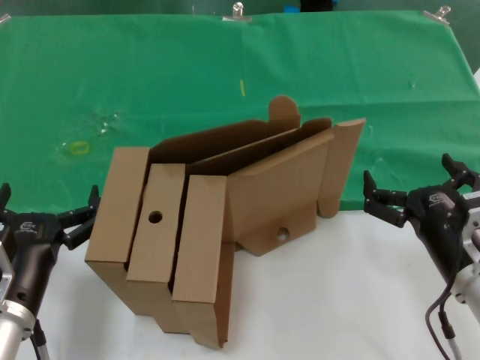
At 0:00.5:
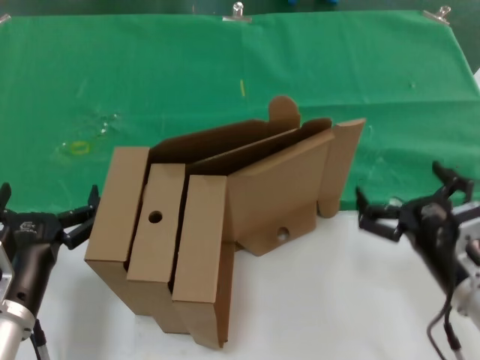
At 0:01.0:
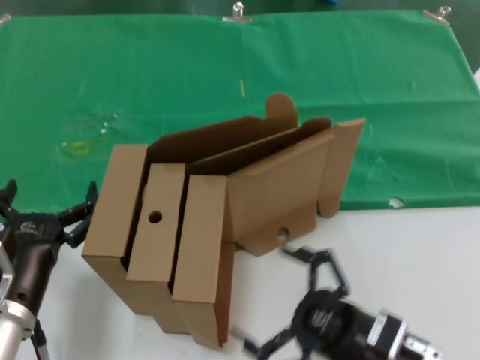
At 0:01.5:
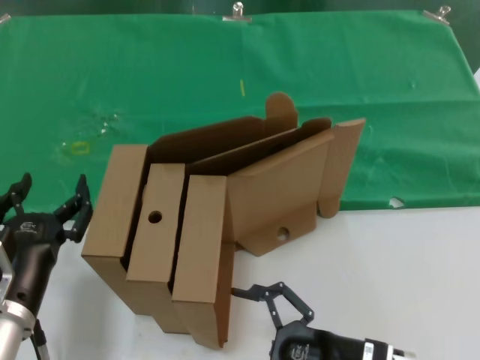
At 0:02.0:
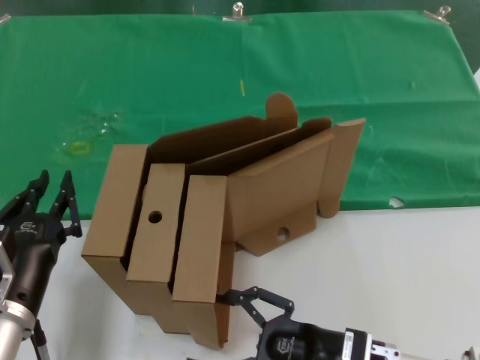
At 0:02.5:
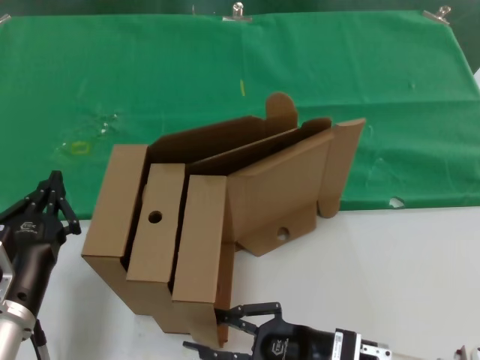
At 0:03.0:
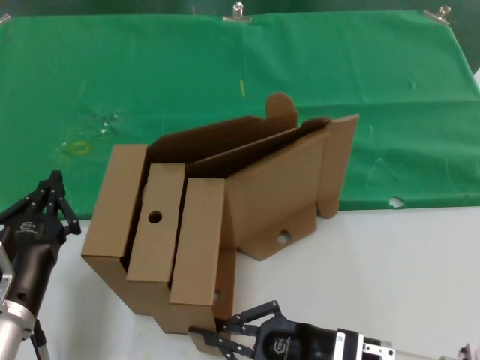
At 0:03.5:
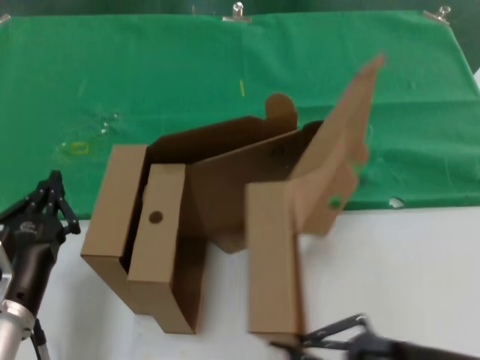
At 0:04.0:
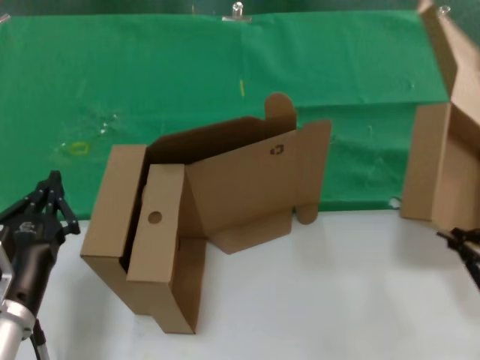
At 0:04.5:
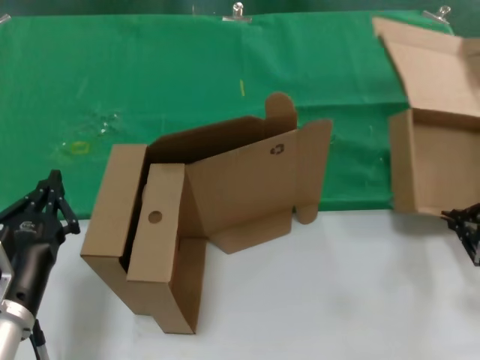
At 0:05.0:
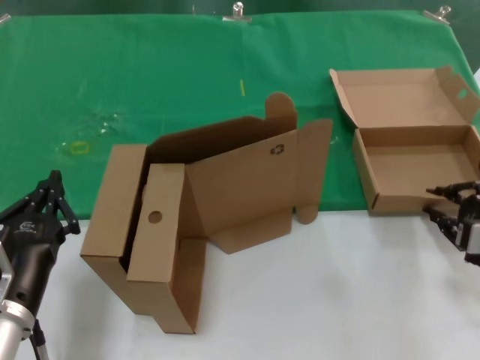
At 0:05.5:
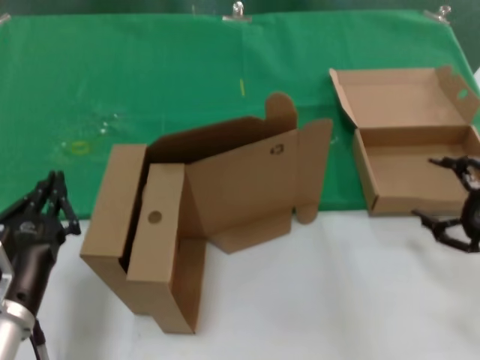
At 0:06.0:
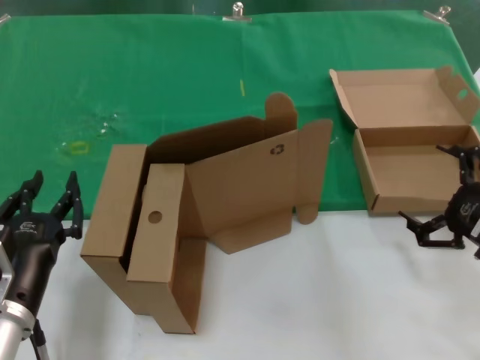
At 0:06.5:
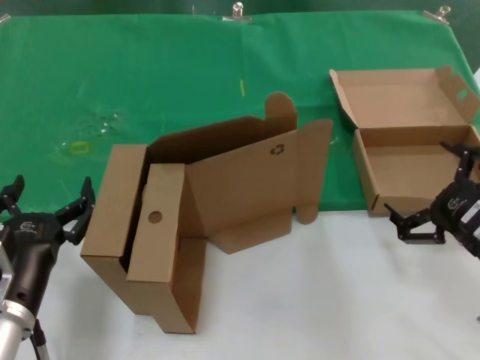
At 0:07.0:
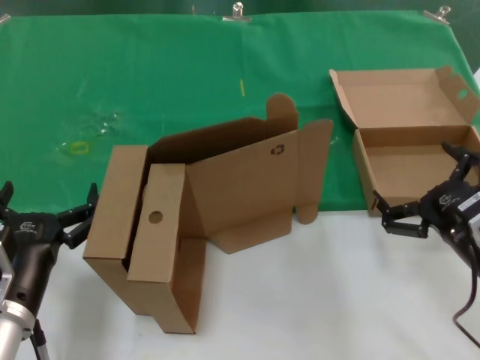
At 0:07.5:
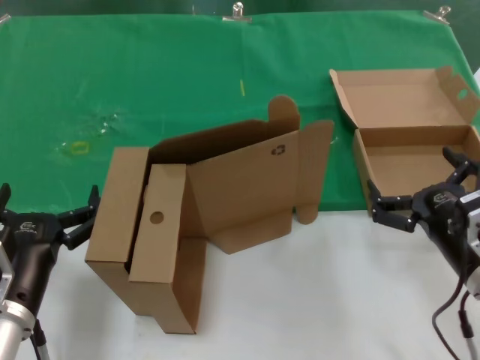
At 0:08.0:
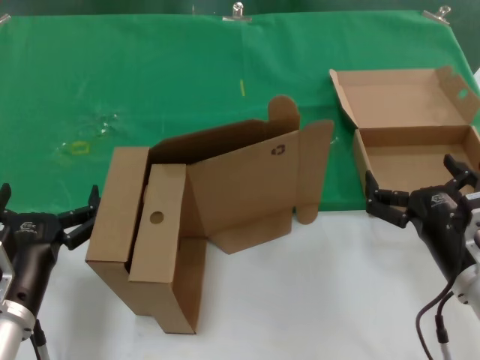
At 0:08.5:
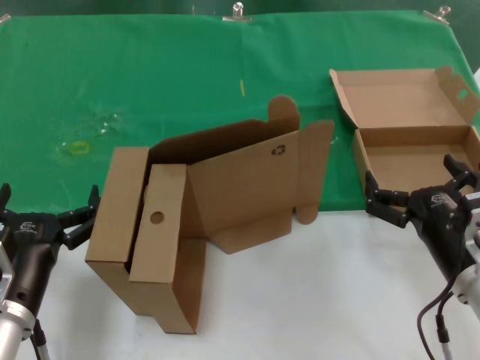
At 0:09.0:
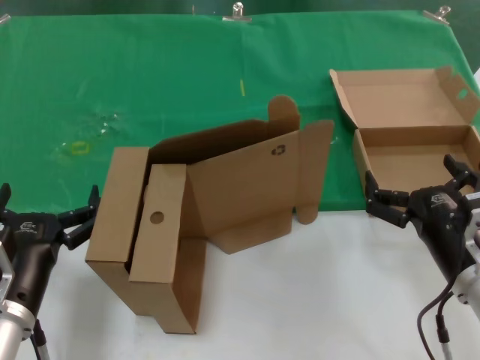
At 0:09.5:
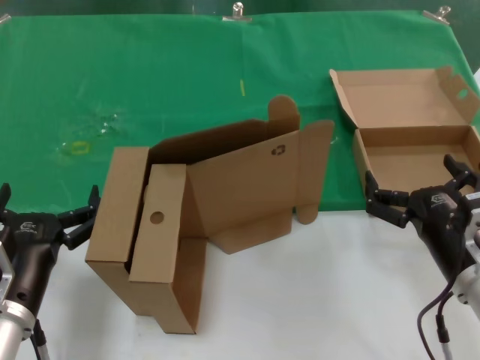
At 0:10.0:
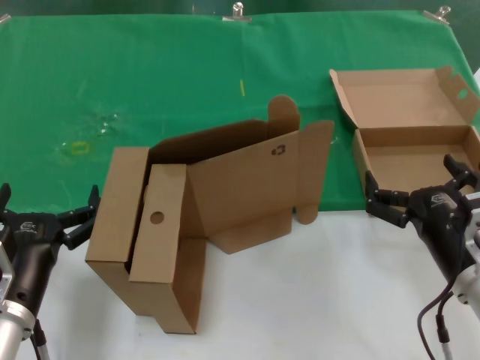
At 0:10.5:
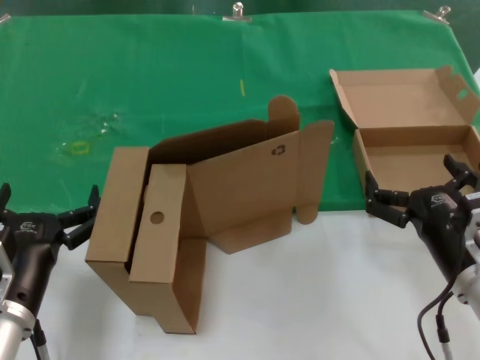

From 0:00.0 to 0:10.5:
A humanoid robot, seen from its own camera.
Task of the whole recording: pick up the paper box and put it at the back.
Step, from 0:00.0 to 0:02.5: Grasp the paper box.
Step, from 0:03.5 to 0:05.0: Place the paper box on the table.
From 0:00.0 to 0:02.0: The right hand shifts roughly 10 cm downward and to the left.
From 0:02.0 to 0:04.0: The right hand moves to the right and upward, about 25 cm.
From 0:04.0 to 0:06.5: The right hand goes approximately 10 cm to the left and forward.
From 0:06.5 to 0:08.5: The right hand is displaced to the left by roughly 10 cm.
From 0:08.5 to 0:10.5: The two hands keep their place.
